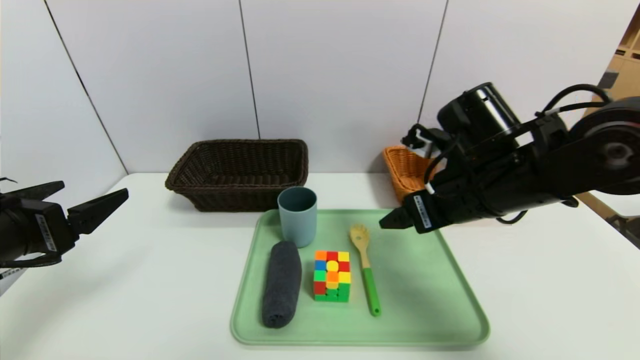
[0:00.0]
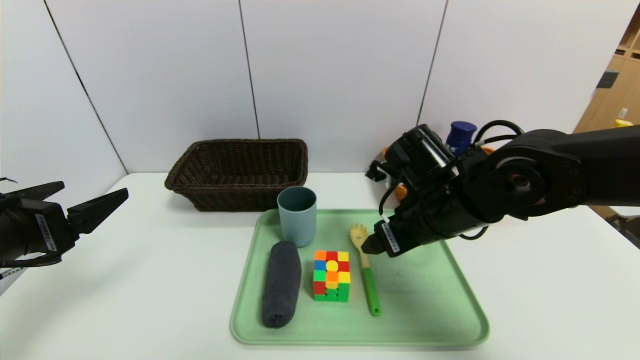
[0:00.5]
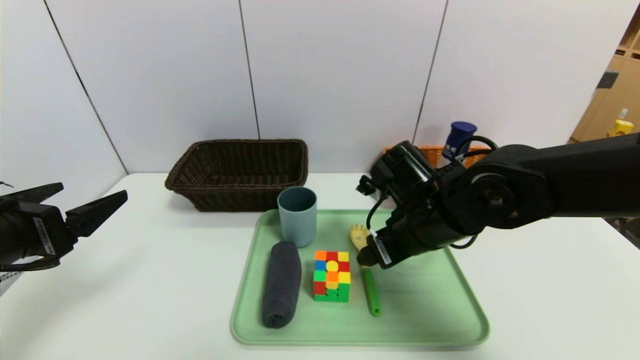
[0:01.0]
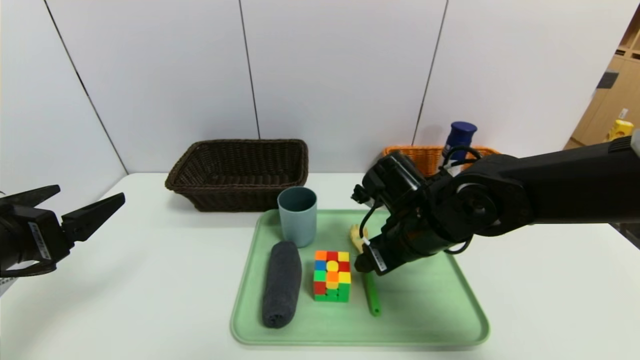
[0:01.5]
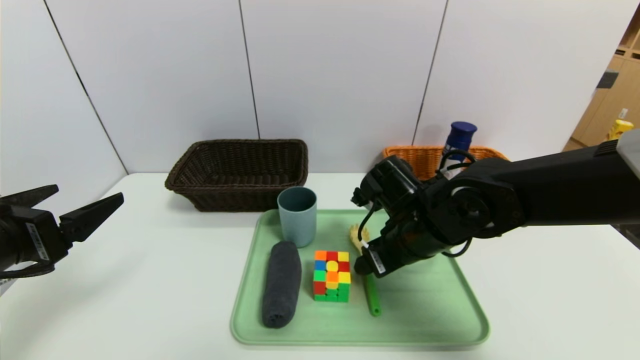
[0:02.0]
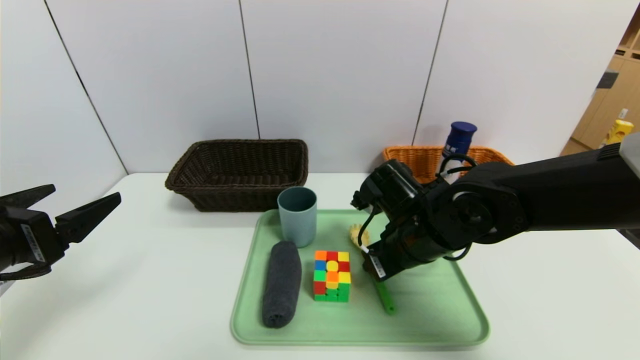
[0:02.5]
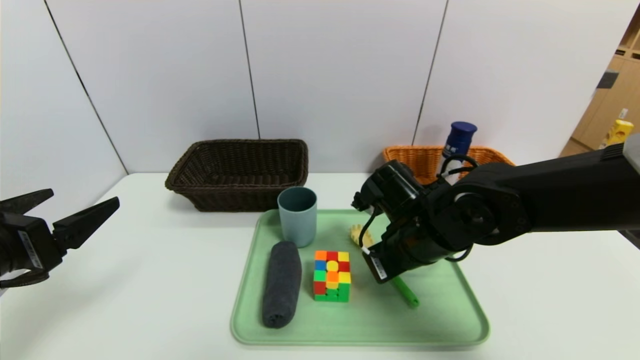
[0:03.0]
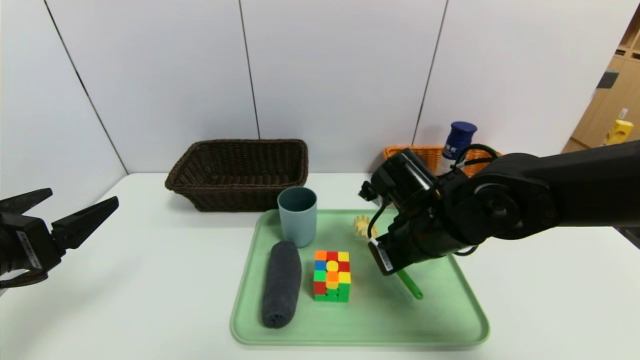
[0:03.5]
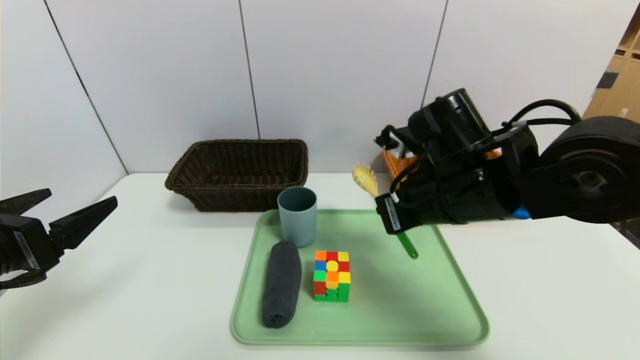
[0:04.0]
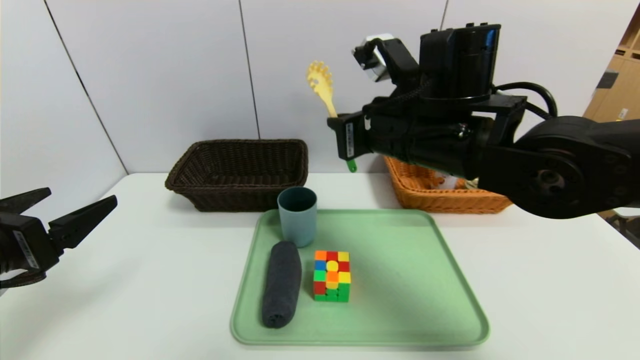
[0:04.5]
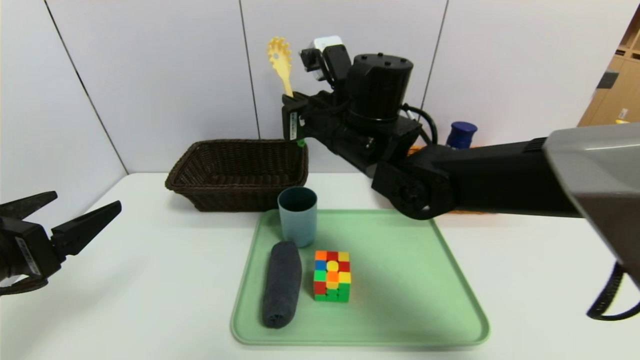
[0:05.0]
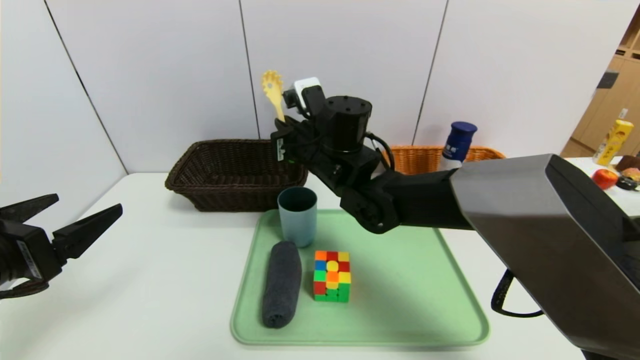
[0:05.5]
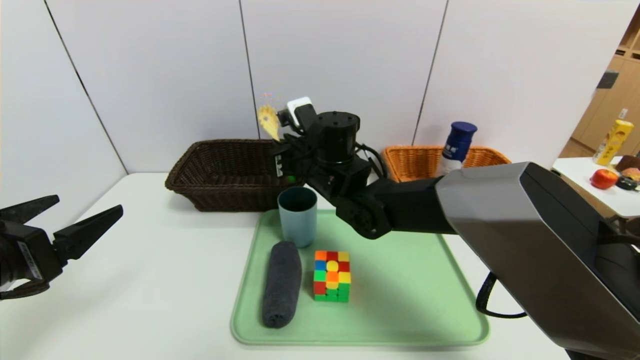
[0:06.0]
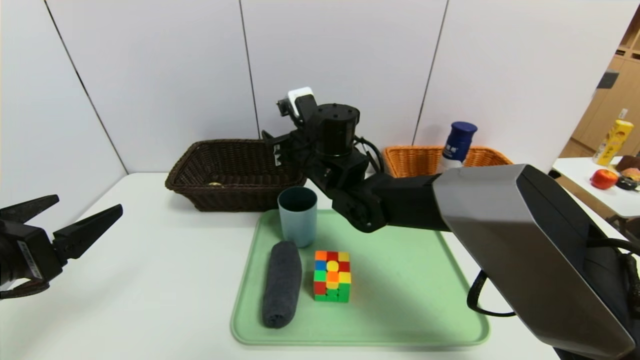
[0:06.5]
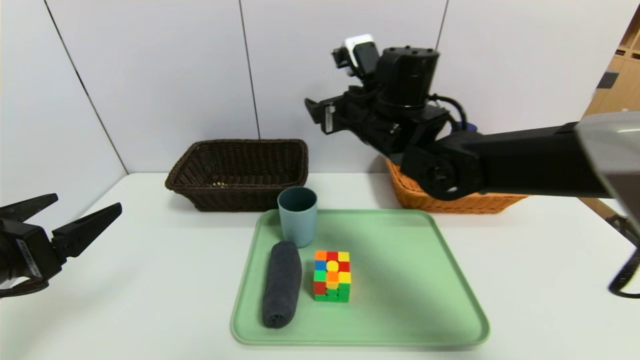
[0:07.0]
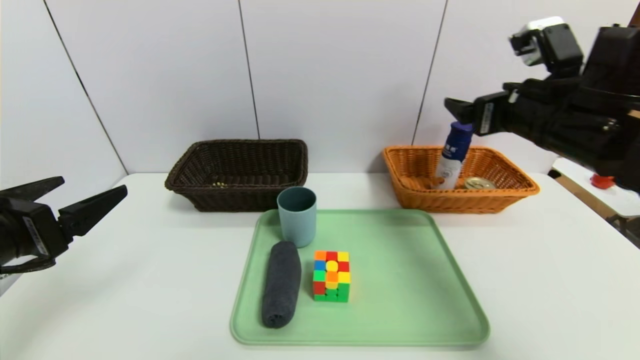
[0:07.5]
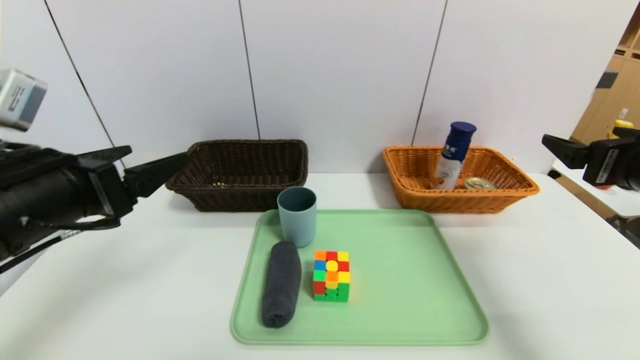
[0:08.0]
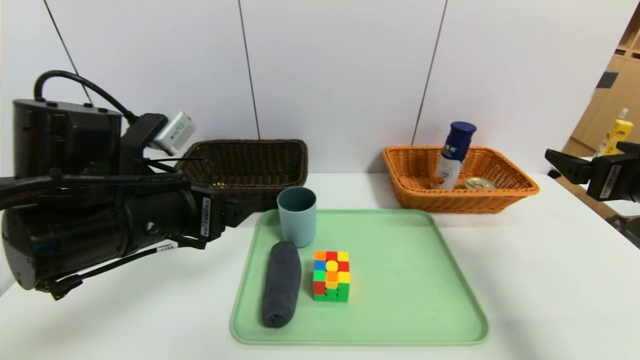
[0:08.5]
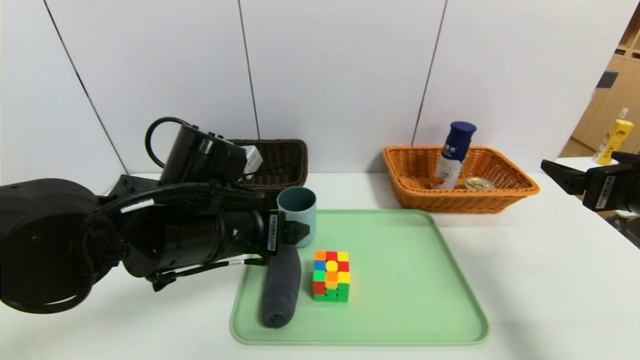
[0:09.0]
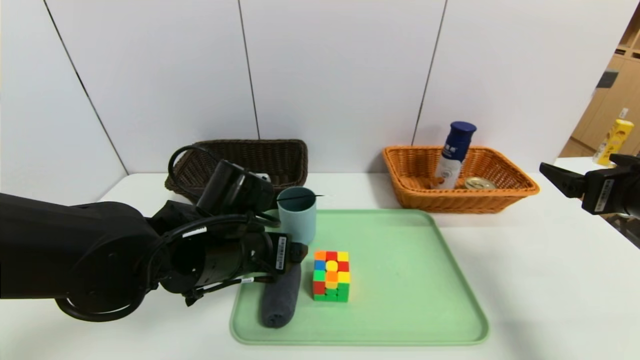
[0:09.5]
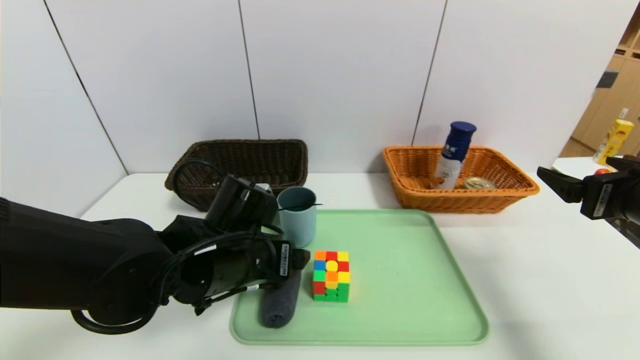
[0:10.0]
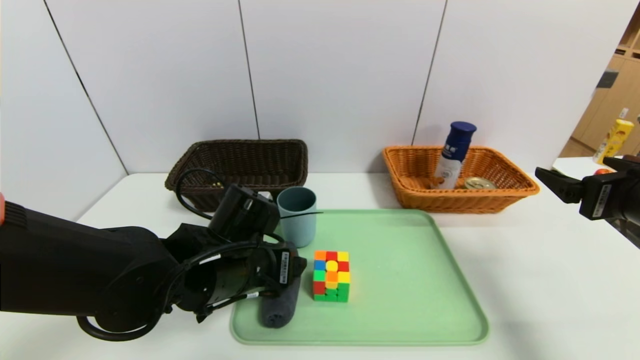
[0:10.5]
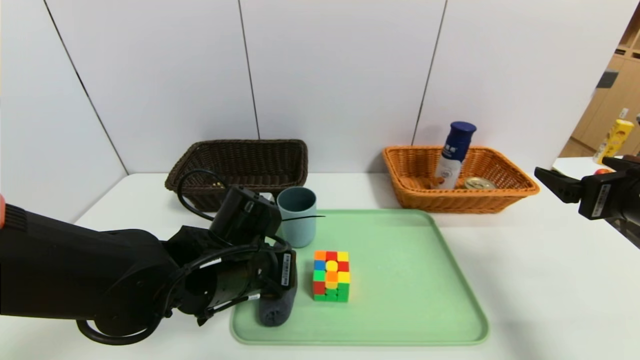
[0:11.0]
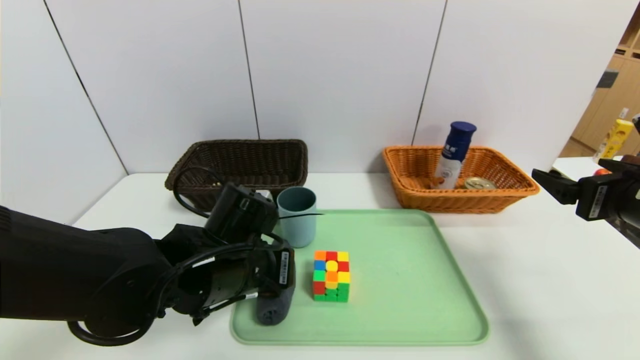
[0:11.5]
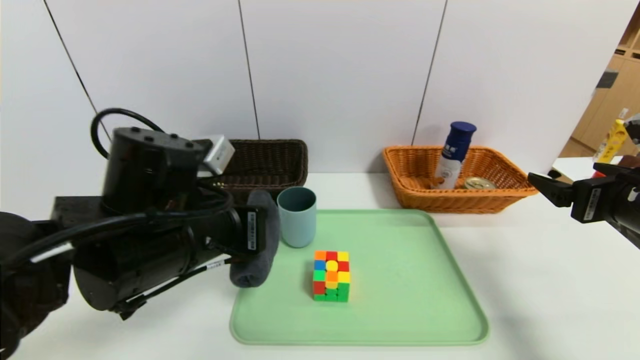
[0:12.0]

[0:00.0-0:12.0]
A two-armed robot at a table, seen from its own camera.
Task of the whole recording: place the food in the right basket with the right gripper, and place the non food items in the left basket with the left gripper.
0:00.0 to 0:02.0: The right gripper is displaced downward and to the left by some 10 cm.
0:02.0 to 0:04.0: The right gripper moves upward, some 10 cm, and closes.
0:04.0 to 0:06.0: The right gripper heads to the left and forward, covering about 20 cm.
0:06.0 to 0:08.0: The right gripper travels to the right and backward by some 40 cm, and opens, while the left gripper moves to the right, roughly 5 cm.
0:08.0 to 0:10.0: The left gripper goes about 20 cm to the right, downward and forward.
0:10.0 to 0:12.0: The left gripper moves upward, about 5 cm, and closes.

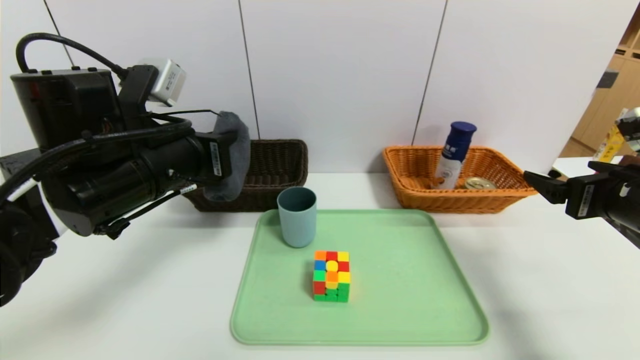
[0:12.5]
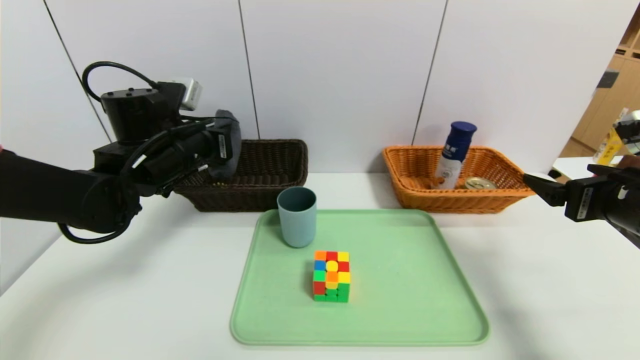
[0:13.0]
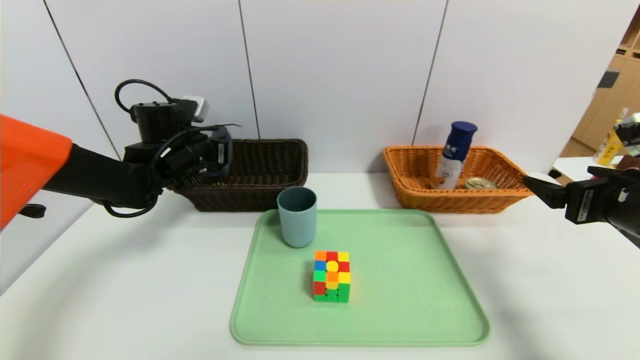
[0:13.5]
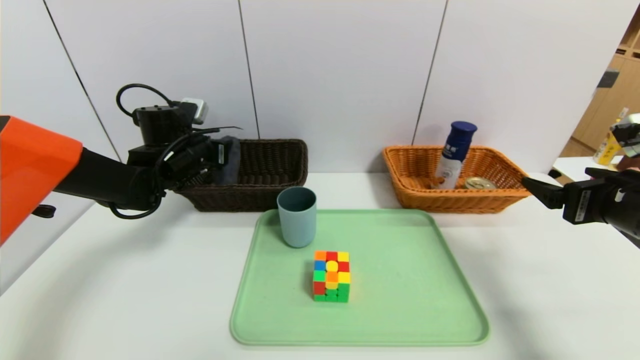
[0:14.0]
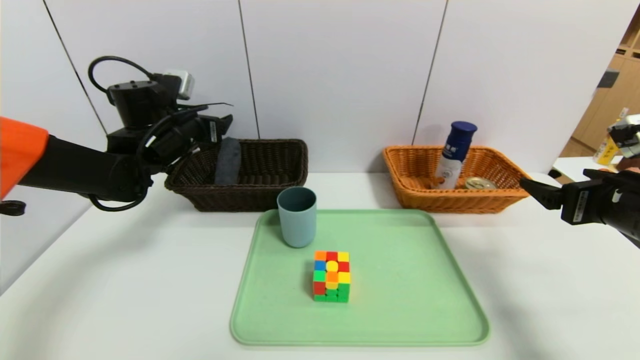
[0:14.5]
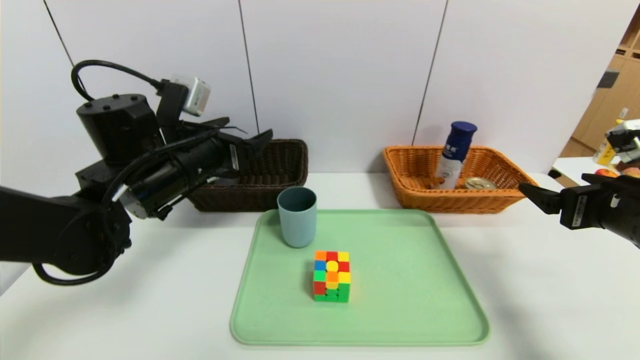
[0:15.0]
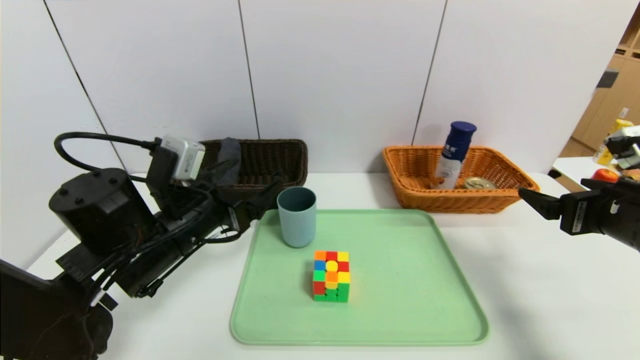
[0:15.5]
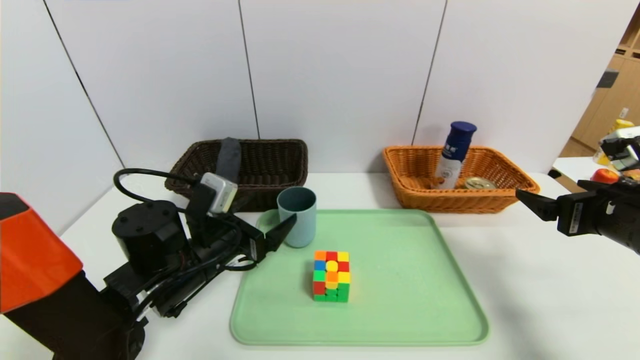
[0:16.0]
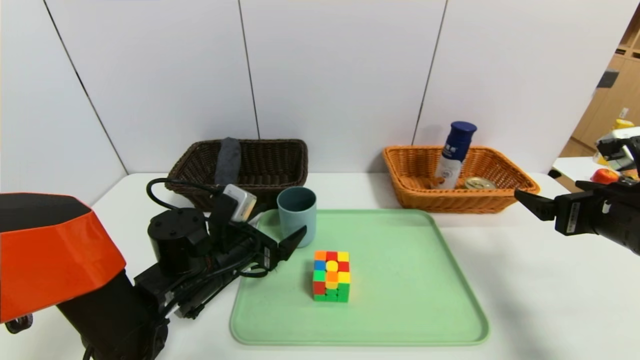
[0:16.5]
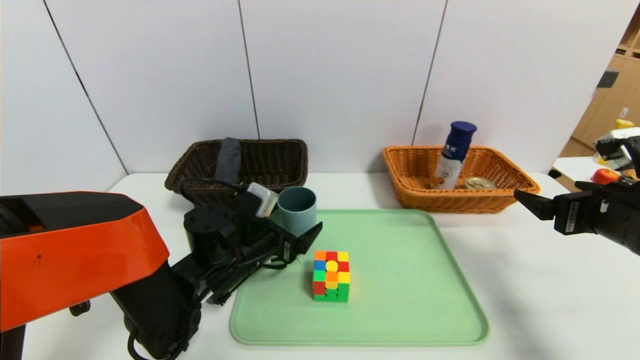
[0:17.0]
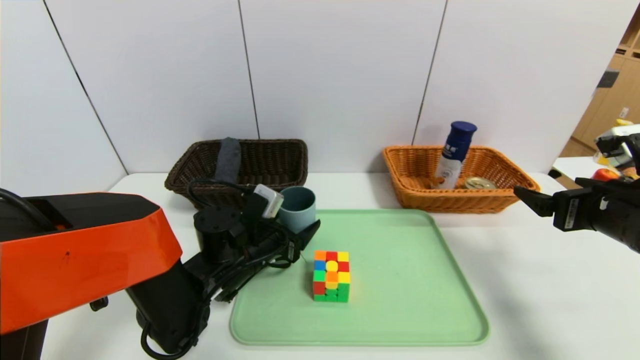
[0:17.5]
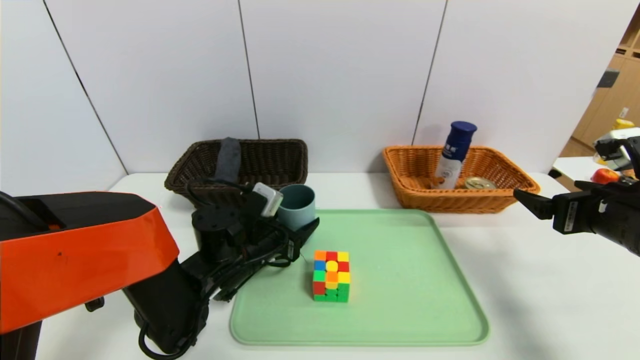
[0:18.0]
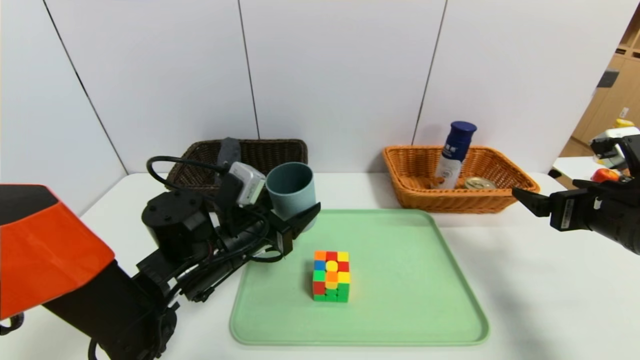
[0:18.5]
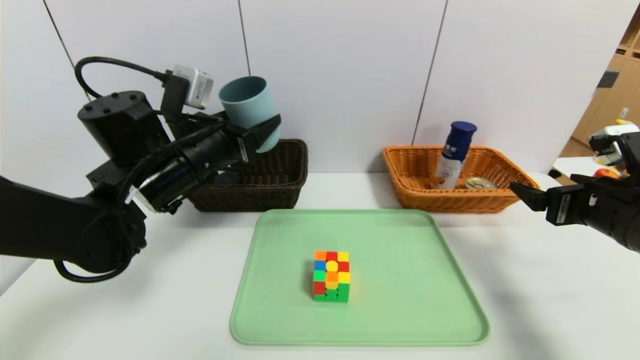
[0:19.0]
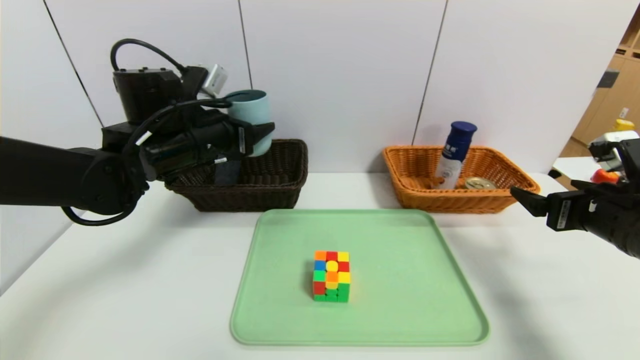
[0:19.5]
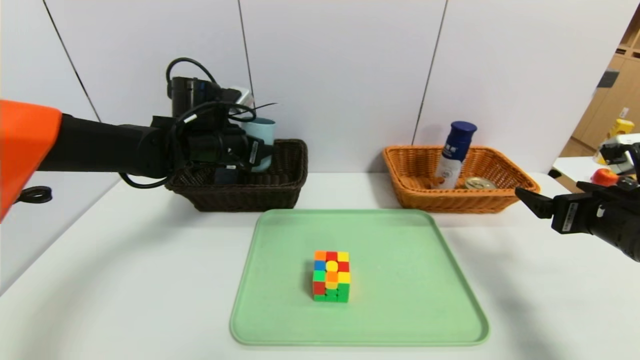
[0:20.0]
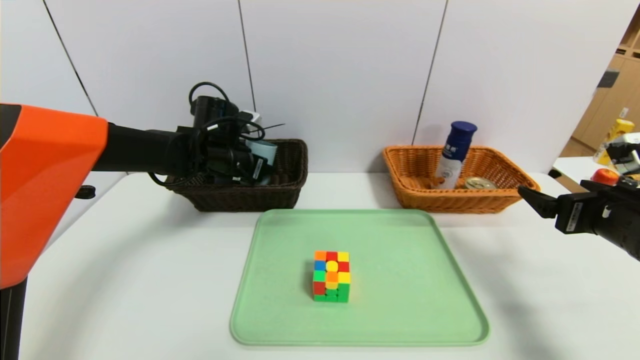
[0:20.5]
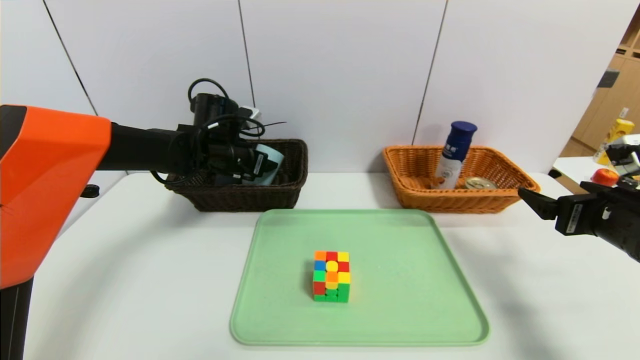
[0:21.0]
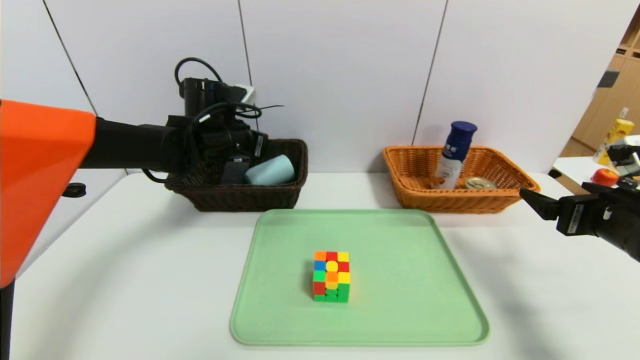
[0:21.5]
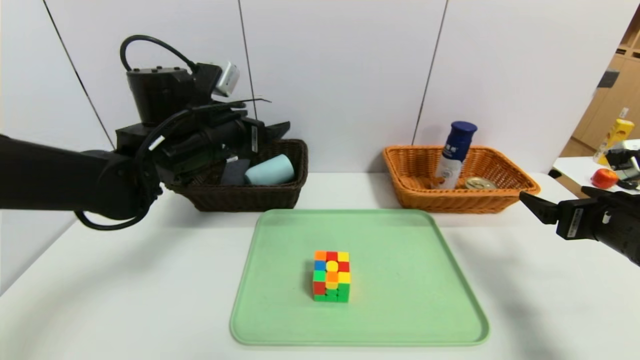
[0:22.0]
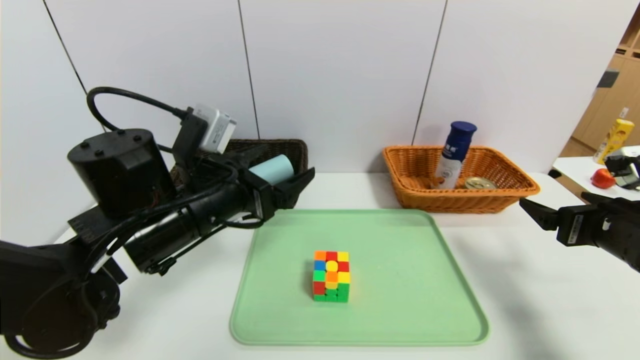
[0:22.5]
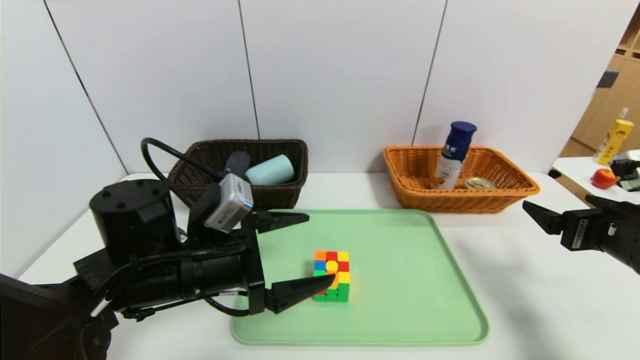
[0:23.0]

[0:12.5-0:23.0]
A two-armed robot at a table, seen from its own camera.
Task of the whole recording: place the food in the right basket with the right gripper, and place the non food items in the left basket with the left gripper.
Step, 0:12.5 to 0:14.5: Grasp the glasses case and put it in the left basket.
Step, 0:15.0 to 0:21.5: Grasp the tea cup and put it in the left basket.
0:12.5 to 0:14.5: The left gripper travels forward by about 15 cm, and opens its fingers.
0:14.5 to 0:16.5: The left gripper moves backward, downward and to the right, approximately 20 cm.
0:16.5 to 0:19.0: The left gripper is displaced upward by roughly 15 cm, and closes up.
0:19.0 to 0:21.0: The left gripper moves forward, some 10 cm.
0:21.0 to 0:23.0: The left gripper goes roughly 20 cm backward.
